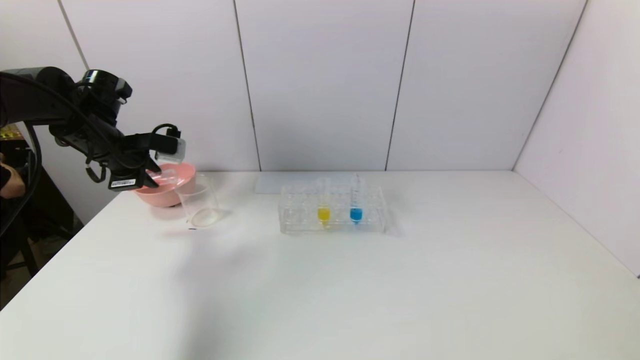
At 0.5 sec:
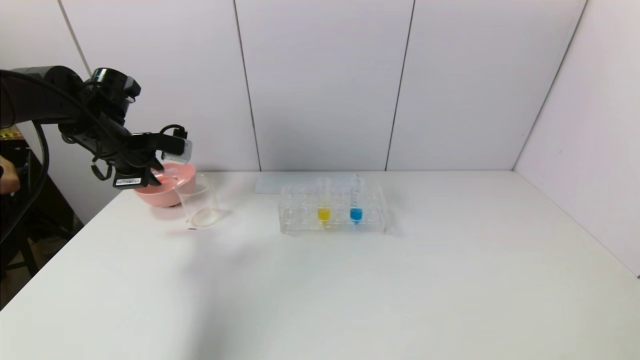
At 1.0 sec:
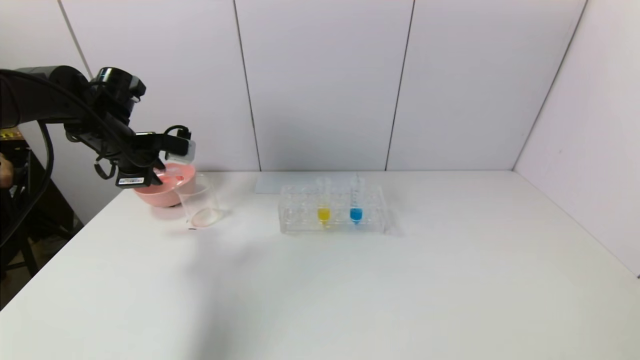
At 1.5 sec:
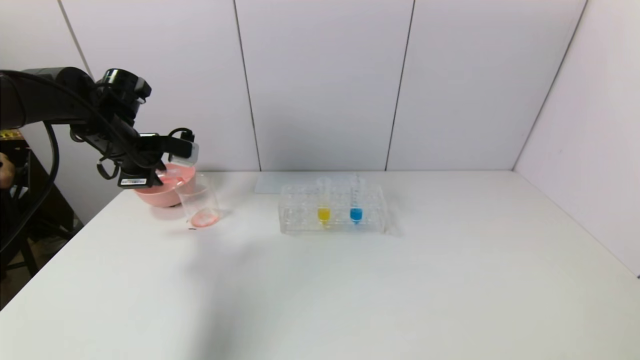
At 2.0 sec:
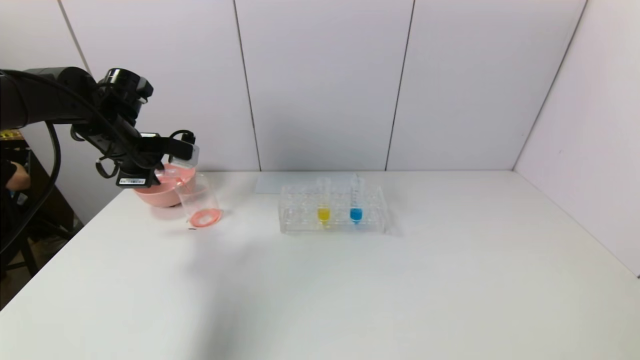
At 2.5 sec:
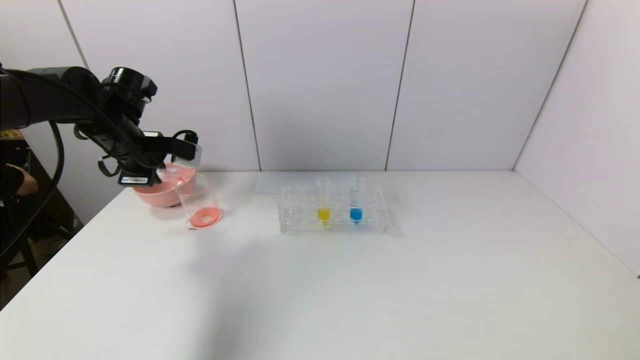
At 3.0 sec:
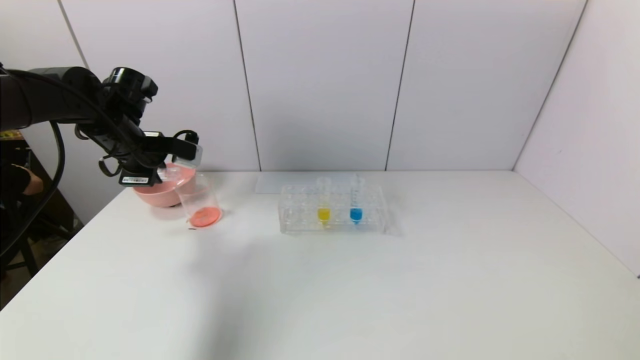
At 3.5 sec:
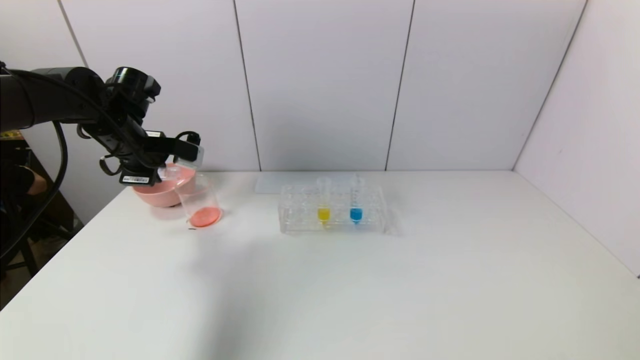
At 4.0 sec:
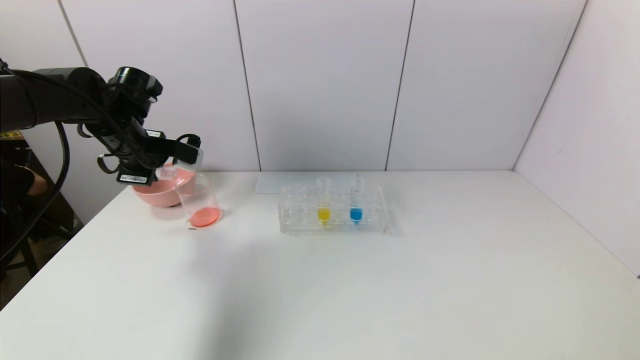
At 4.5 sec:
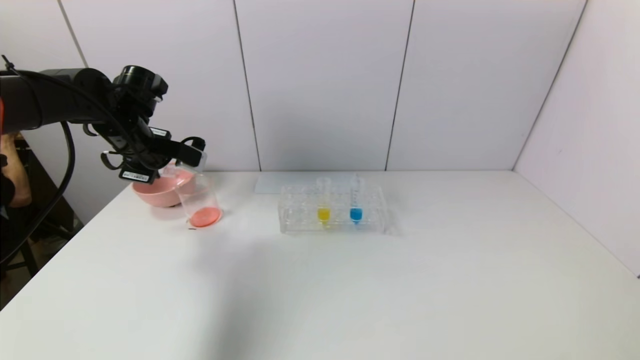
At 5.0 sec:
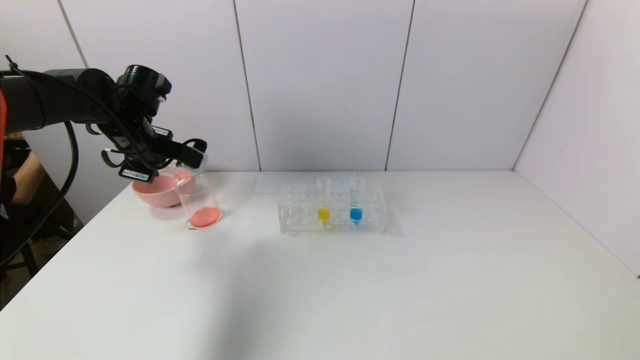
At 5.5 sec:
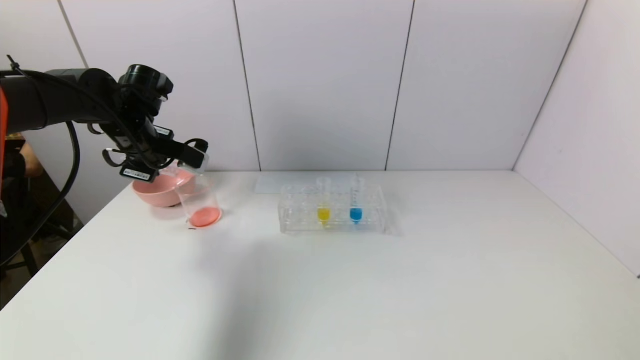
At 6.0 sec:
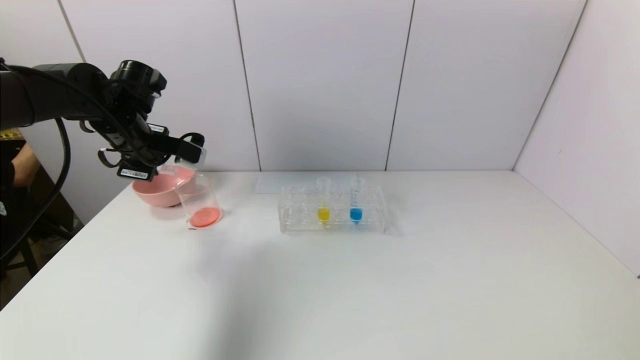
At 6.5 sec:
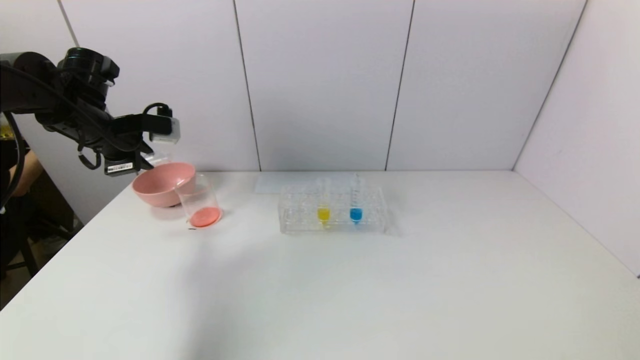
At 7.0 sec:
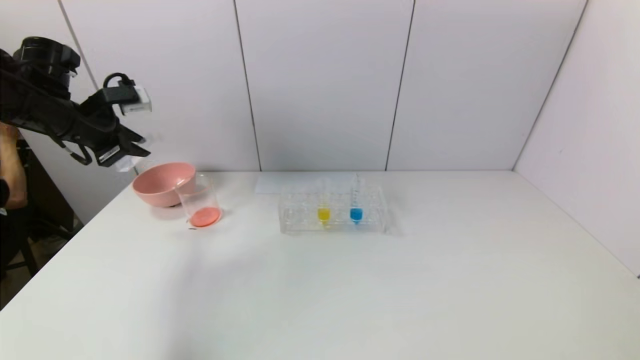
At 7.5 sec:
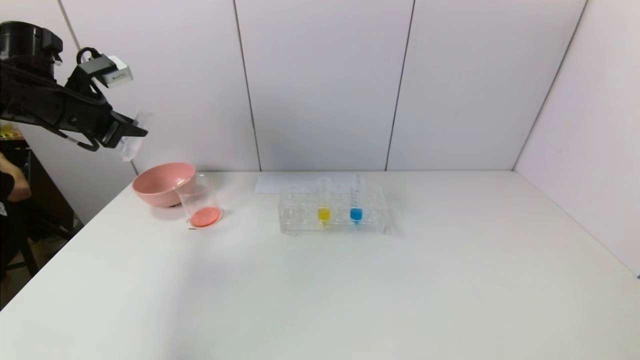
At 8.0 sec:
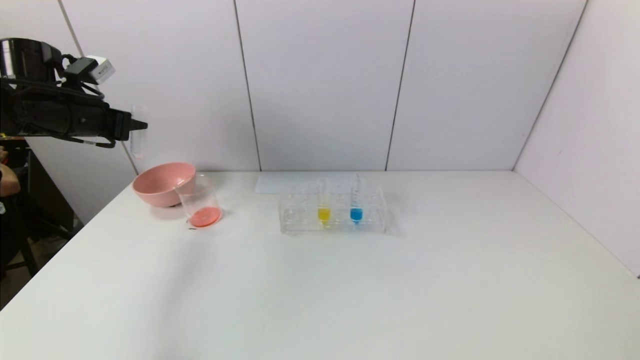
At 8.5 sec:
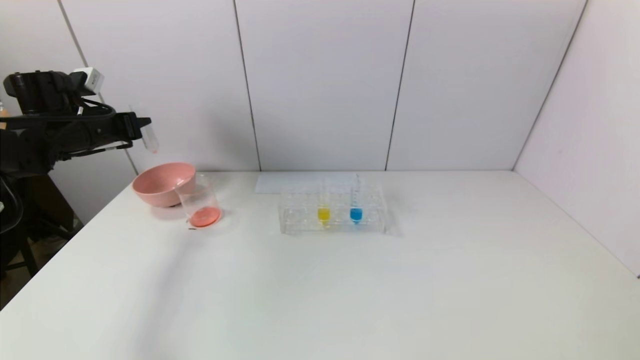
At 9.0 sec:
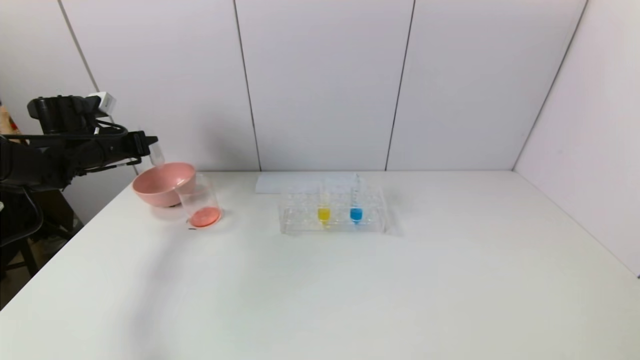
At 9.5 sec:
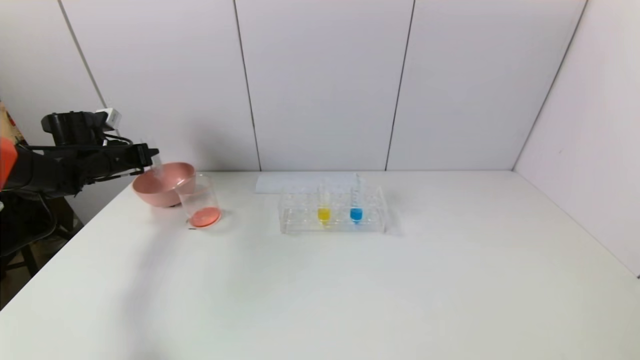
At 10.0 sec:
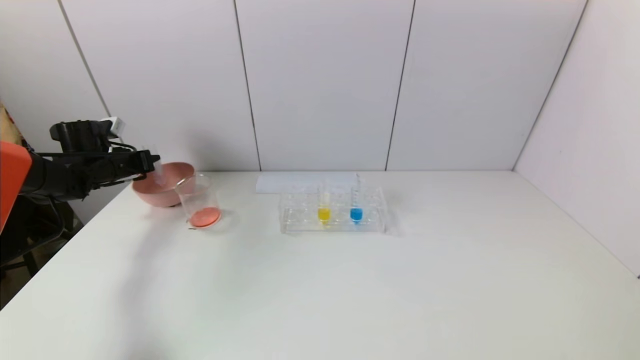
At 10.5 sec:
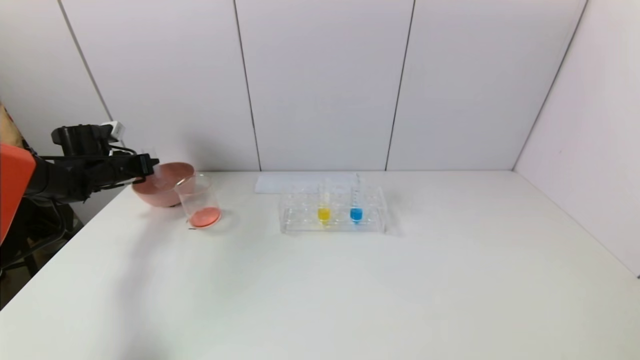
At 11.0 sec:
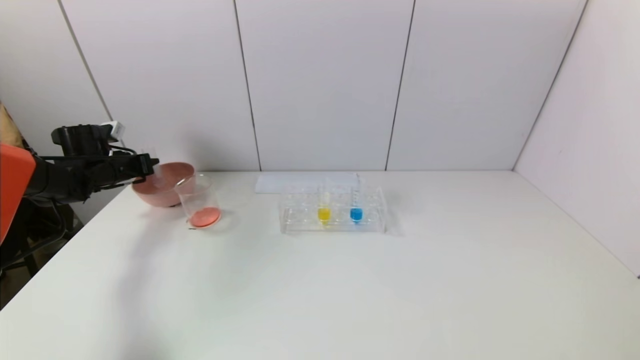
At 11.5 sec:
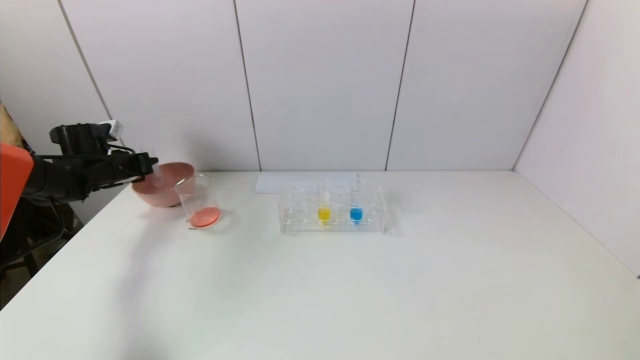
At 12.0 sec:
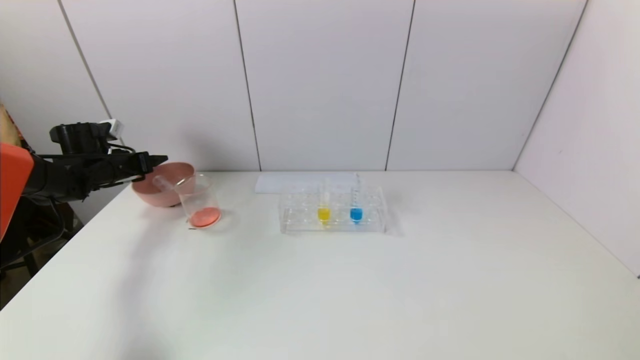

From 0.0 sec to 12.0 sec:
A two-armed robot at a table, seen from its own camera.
Task of the whole recording: pick up the test tube with yellow pigment and the test tube with red pigment by grippers and pour them into the beaker.
Step, from 0.0 sec to 5.5 sec: Pour the red reagent into the graduated cylinder with the left gripper.
Step, from 6.0 sec to 12.0 sec: Place the test tube into the pink bowl with the left gripper.
From 0.0 sec to 4.0 sec: The grippers make only small movements.
From 4.0 sec to 6.0 sec: The grippers move only a little.
From 6.0 sec to 8.0 sec: The left gripper shifts about 10 cm to the left.
From 8.0 sec to 10.0 sec: The left gripper is displaced downward and forward by approximately 15 cm.
From 10.0 sec to 12.0 sec: The left gripper opens.

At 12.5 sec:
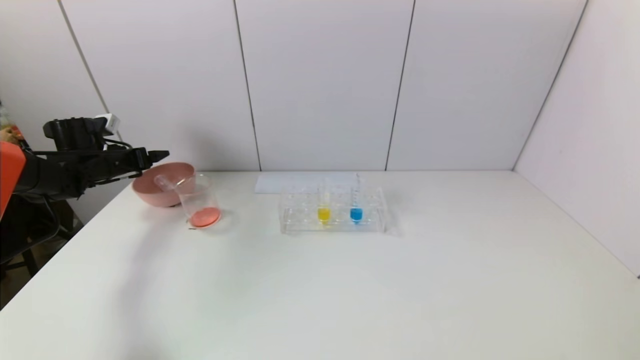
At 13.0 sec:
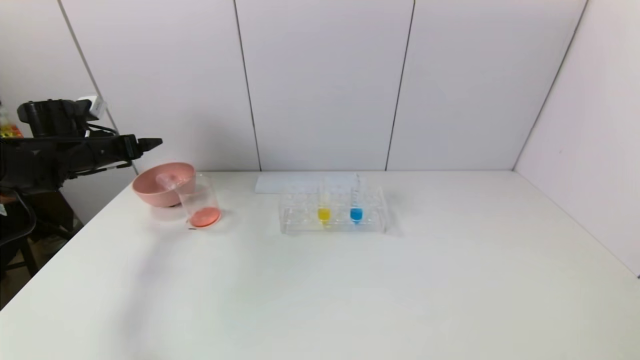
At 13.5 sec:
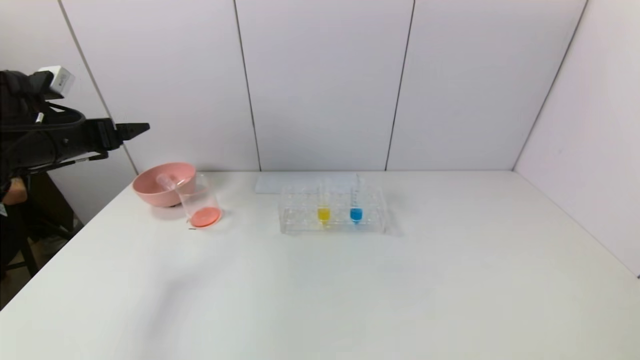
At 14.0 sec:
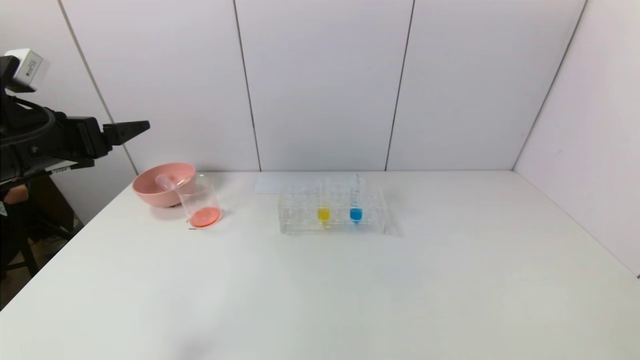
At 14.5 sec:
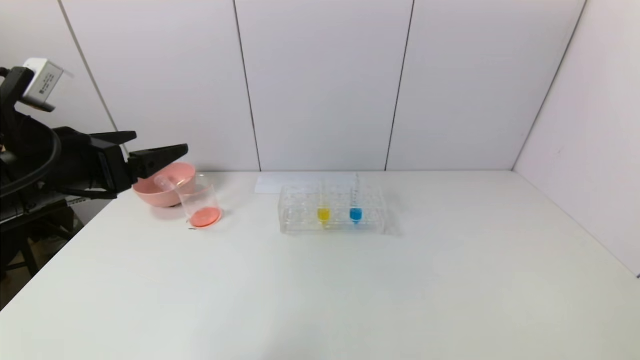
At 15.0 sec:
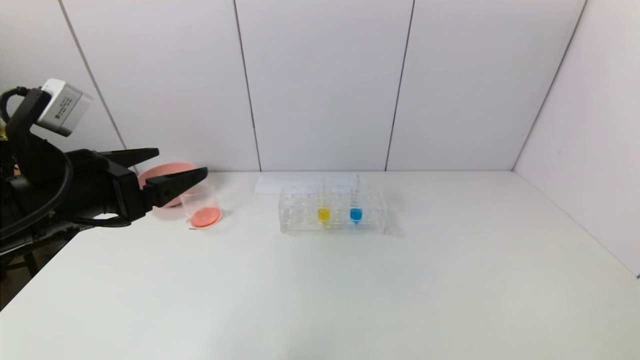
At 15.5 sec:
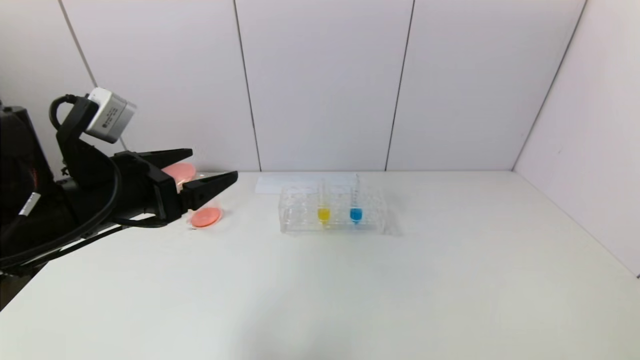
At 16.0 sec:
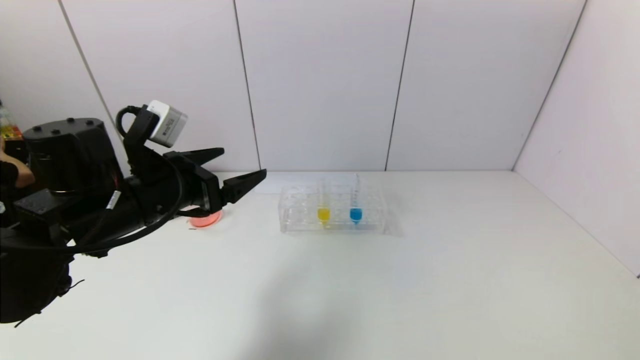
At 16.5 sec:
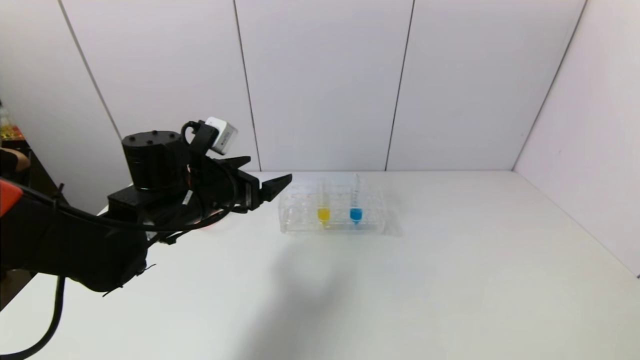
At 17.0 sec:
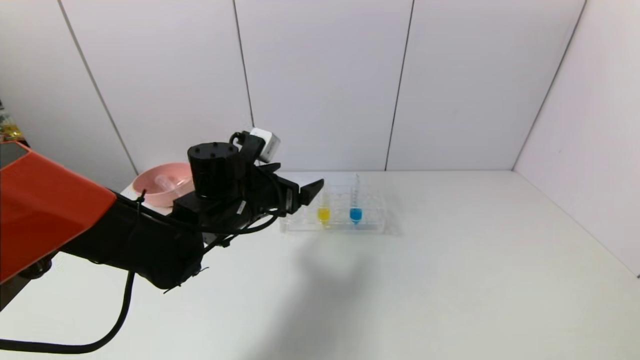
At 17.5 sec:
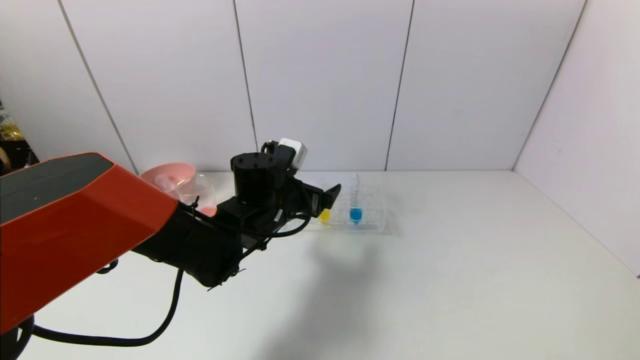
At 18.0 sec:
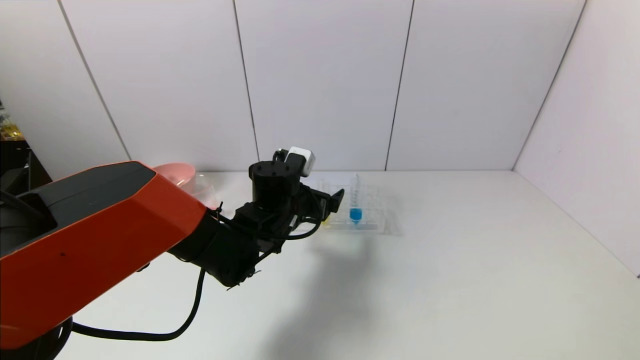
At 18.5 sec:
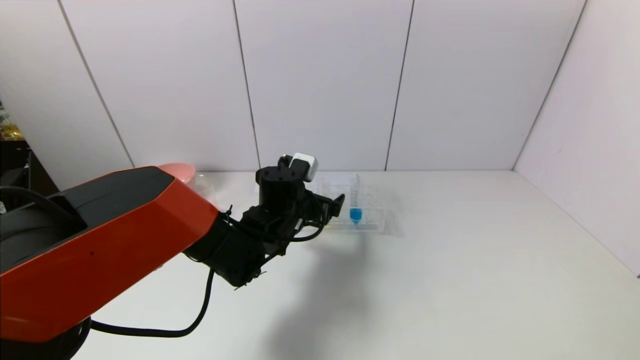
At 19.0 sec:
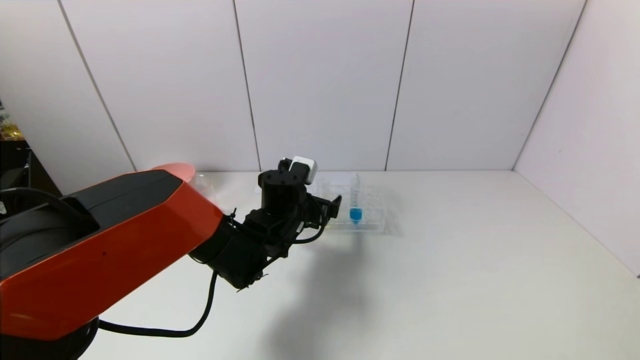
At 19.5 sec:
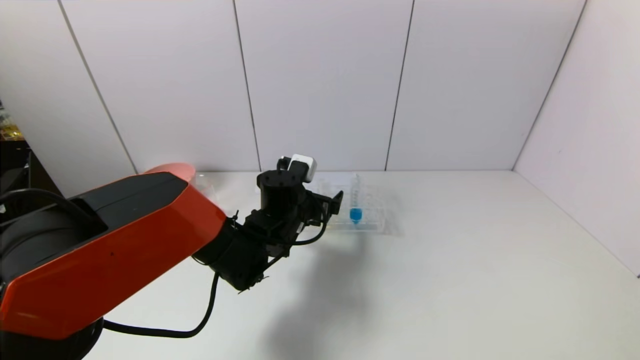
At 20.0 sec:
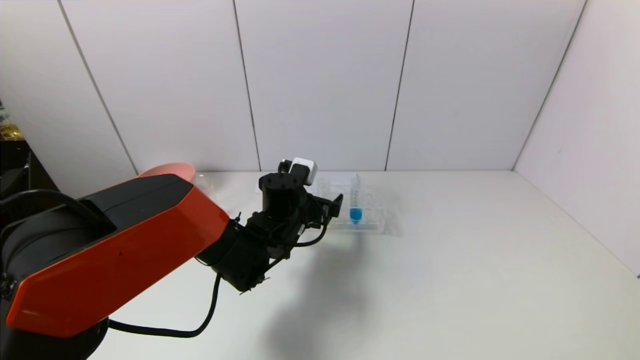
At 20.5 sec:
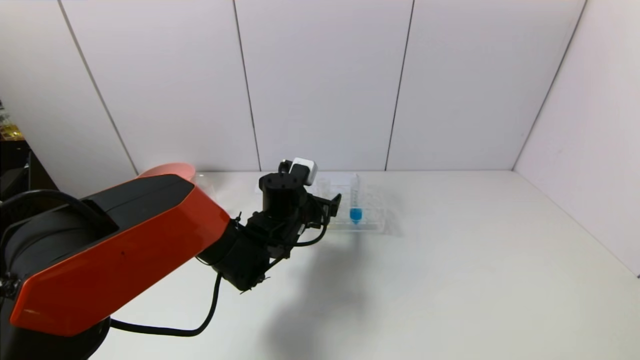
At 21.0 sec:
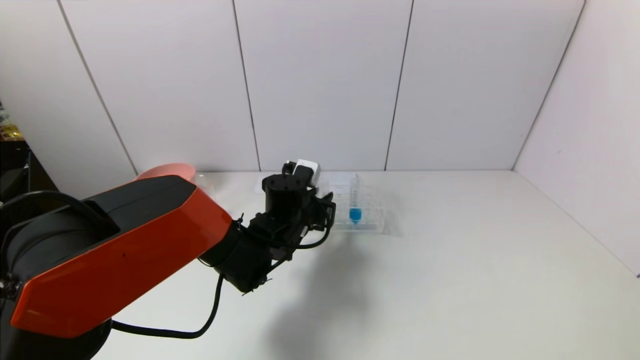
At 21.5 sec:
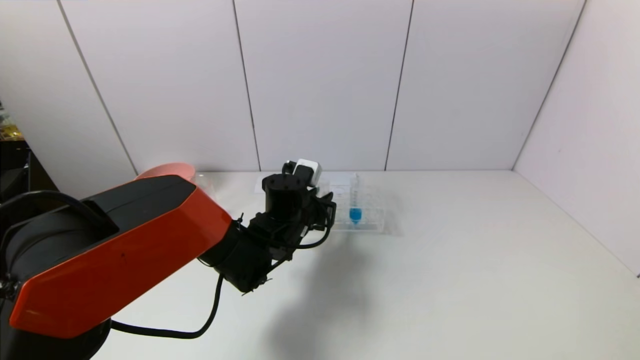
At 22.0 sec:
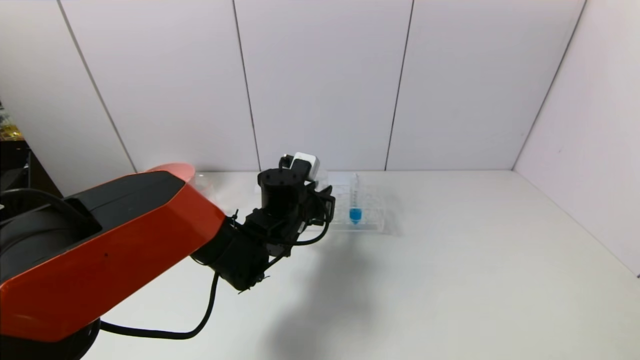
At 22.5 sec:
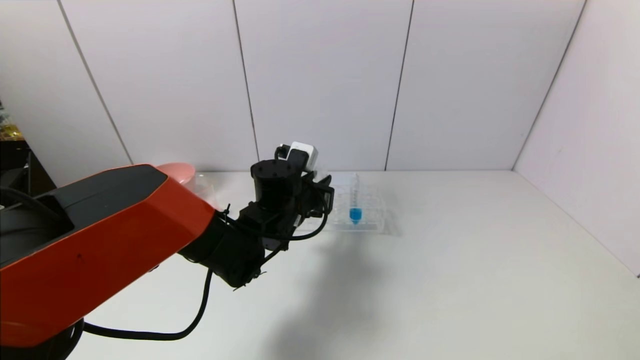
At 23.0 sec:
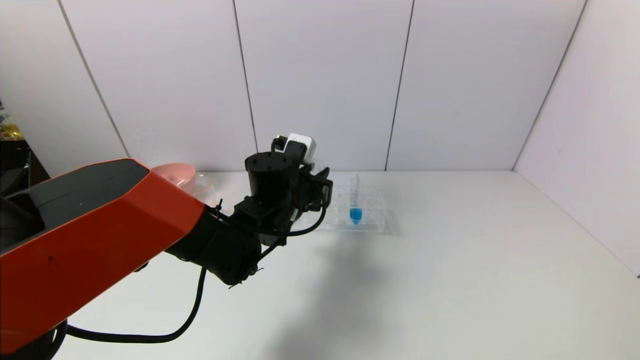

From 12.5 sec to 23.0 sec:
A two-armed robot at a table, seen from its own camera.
Task of the whole recording: pick up the test tube with yellow pigment and the test tube with red pigment by grippers and pour them into the beaker.
Step, from 12.5 sec to 21.0 sec: Grasp the yellow reagent with the left gripper.
From 12.5 sec to 14.5 sec: The left gripper goes approximately 30 cm backward, to the right and upward.
From 14.5 sec to 16.5 sec: The left gripper is displaced to the right, forward and downward by roughly 15 cm.
From 16.5 sec to 19.0 sec: The left gripper shifts some 15 cm to the right and downward.
From 19.0 sec to 21.0 sec: The left gripper closes.
From 21.0 sec to 23.0 sec: The left gripper moves upward, some 5 cm.
